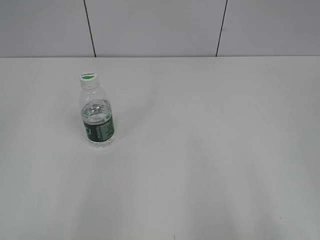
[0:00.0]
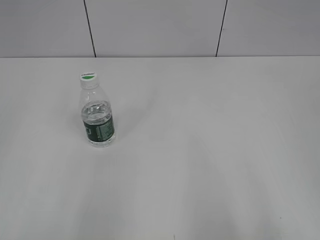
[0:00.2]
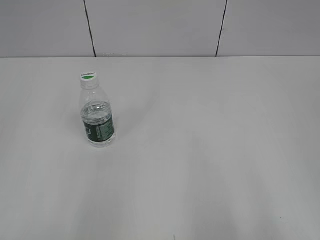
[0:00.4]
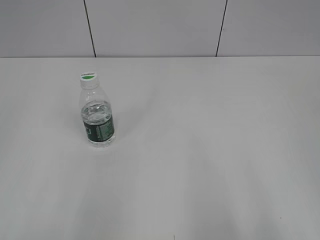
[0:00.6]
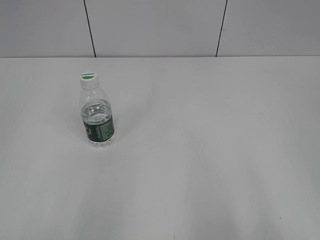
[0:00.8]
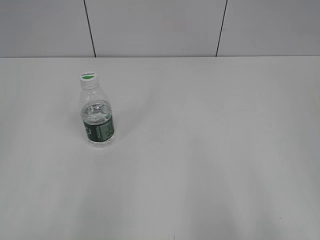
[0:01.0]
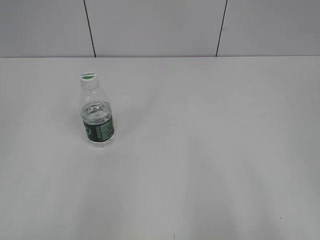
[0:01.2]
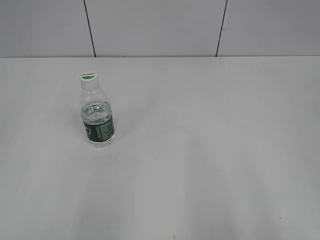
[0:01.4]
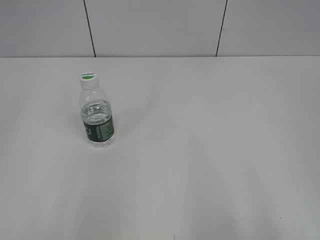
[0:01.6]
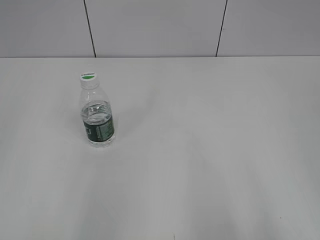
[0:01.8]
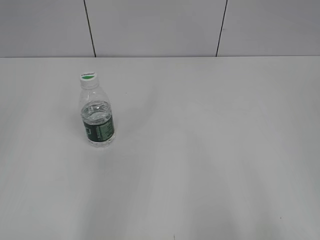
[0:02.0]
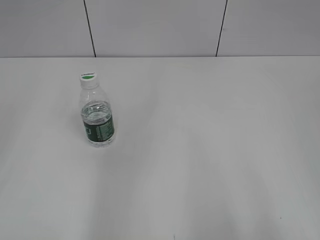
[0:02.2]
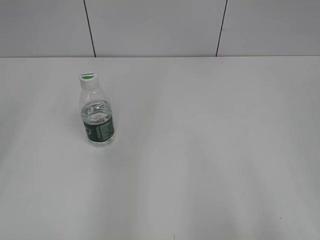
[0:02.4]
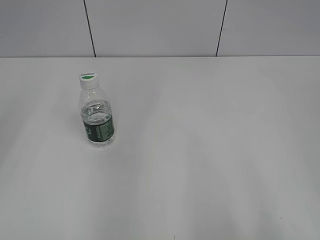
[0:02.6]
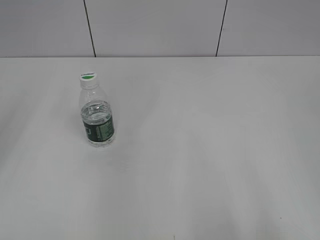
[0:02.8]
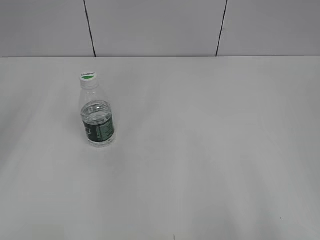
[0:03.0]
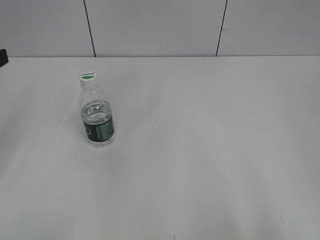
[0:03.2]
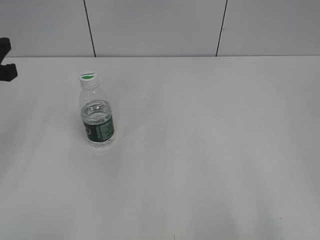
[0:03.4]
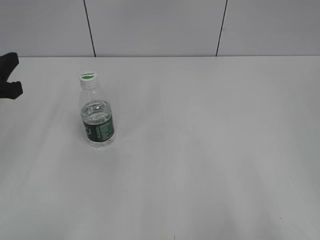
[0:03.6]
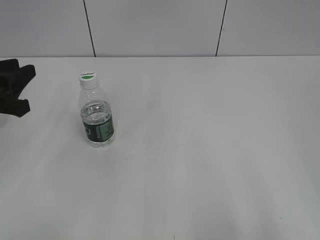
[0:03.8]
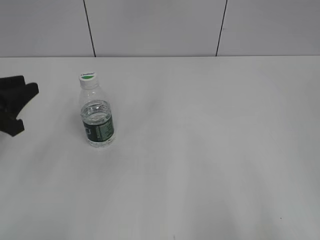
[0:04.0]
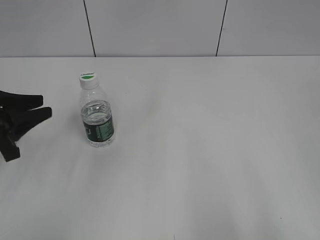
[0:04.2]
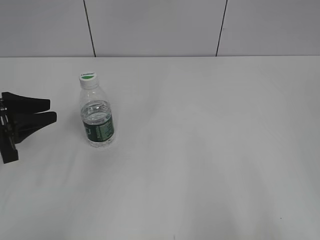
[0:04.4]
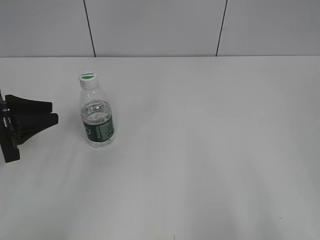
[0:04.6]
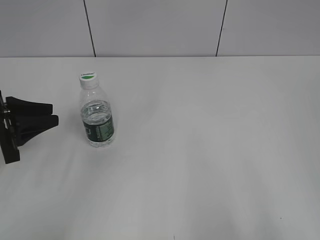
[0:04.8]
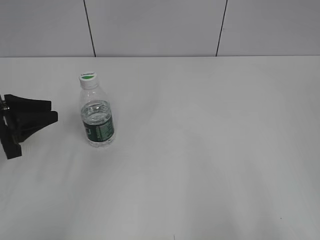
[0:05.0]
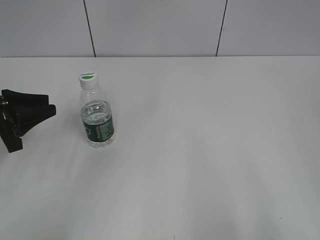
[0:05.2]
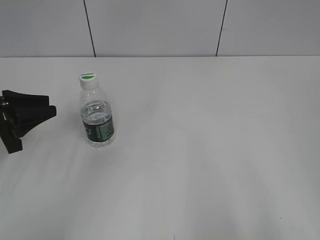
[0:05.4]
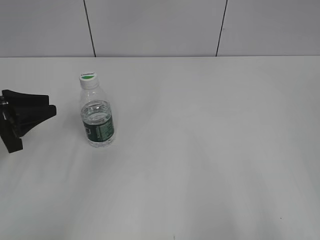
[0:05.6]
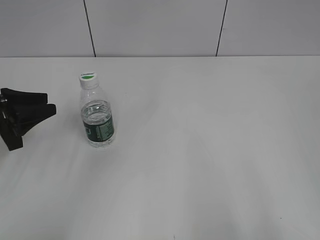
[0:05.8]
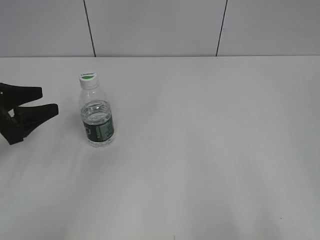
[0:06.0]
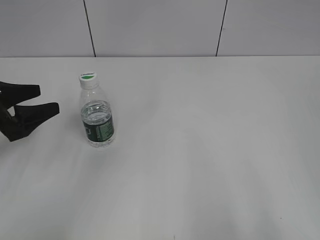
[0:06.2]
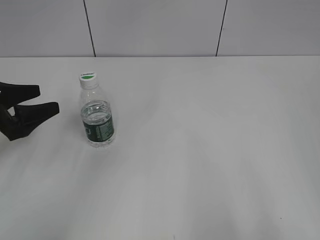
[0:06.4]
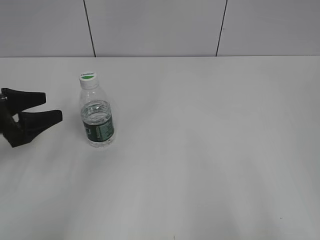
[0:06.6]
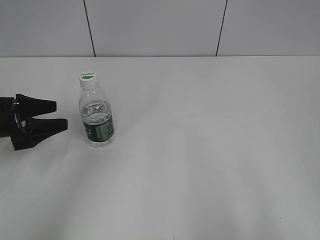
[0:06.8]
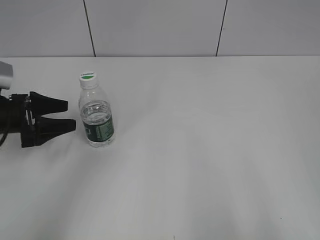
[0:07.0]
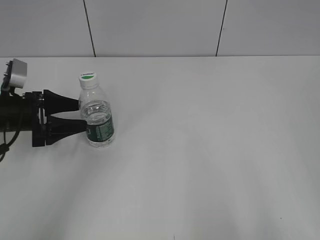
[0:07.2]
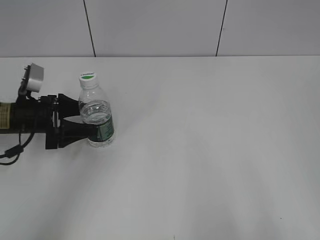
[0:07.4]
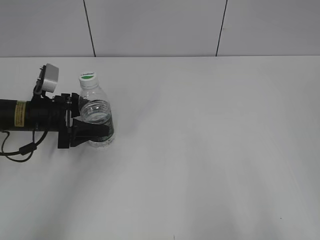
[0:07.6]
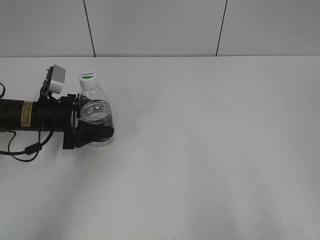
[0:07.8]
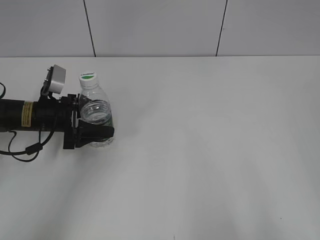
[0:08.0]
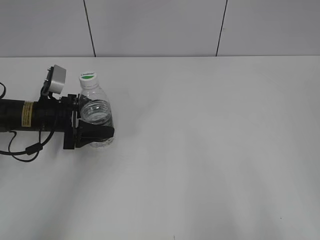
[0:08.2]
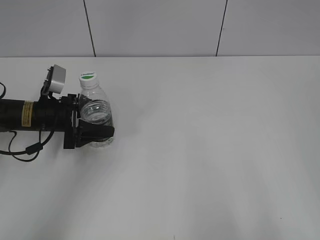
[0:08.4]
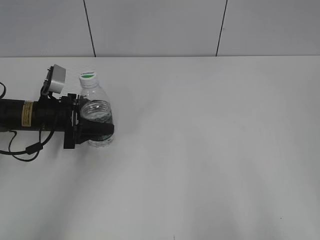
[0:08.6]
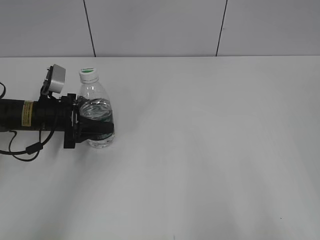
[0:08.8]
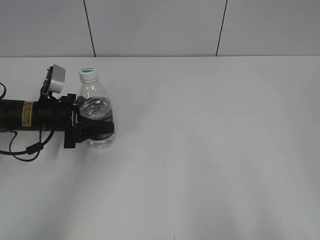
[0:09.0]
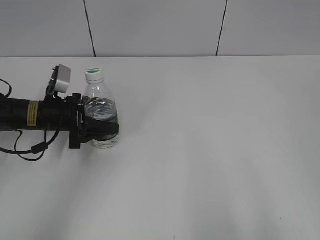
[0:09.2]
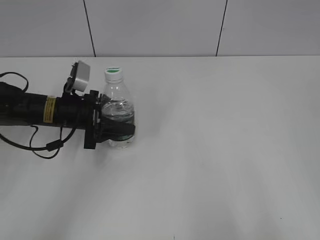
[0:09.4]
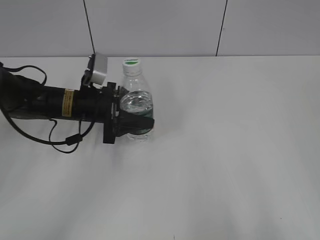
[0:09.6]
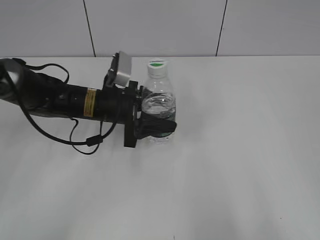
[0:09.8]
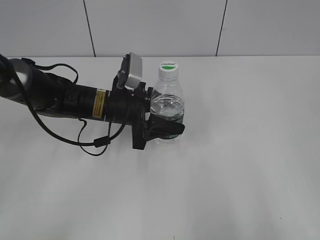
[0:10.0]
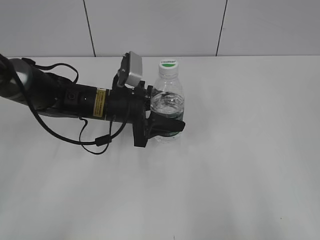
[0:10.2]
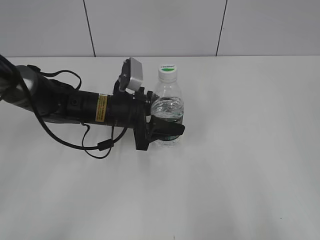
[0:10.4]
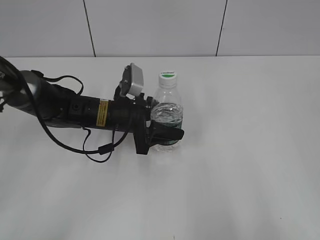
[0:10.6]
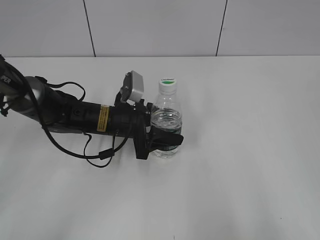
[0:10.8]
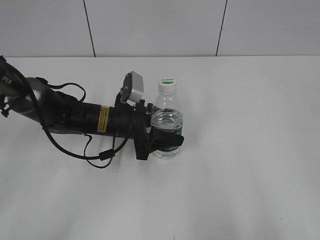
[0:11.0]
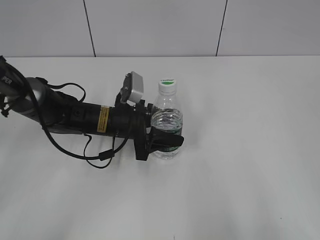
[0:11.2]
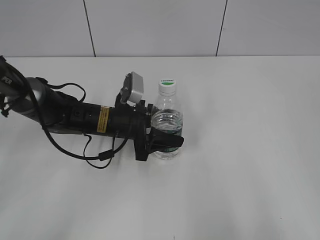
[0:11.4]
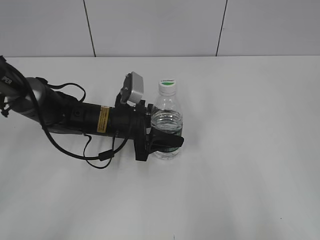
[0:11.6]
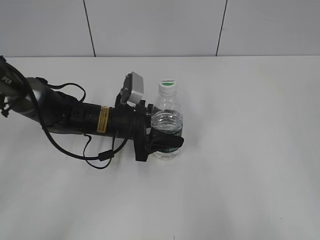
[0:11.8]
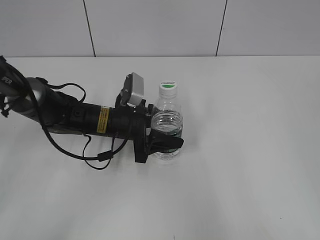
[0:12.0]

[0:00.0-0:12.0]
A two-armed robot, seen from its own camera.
Step, 0:00.0 to 0:08.8: Grasp the bottle and move it to the center of the table with the left gripper.
0:03.0 to 0:04.4: The left gripper is displaced downward by roughly 10 cm.
0:04.4 to 0:06.0: The left gripper opens up.
0:06.0 to 0:07.6: The left gripper travels forward, to the right and downward by approximately 10 cm.
0:07.6 to 0:09.0: The left gripper closes.
0:09.0 to 0:10.4: The left gripper heads to the right, covering approximately 15 cm.
0:10.4 to 0:12.0: The grippers move only a little.

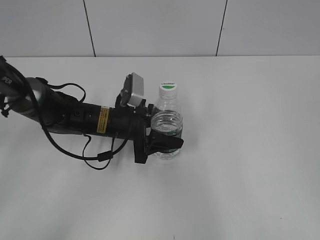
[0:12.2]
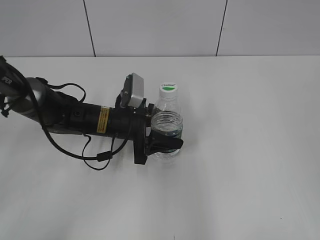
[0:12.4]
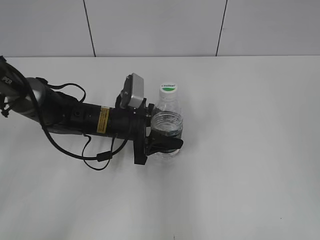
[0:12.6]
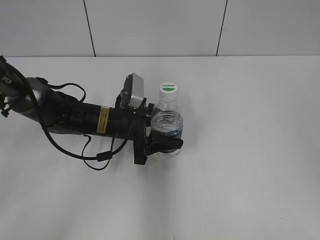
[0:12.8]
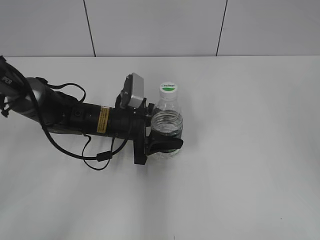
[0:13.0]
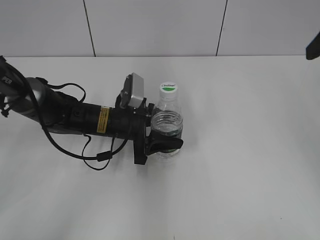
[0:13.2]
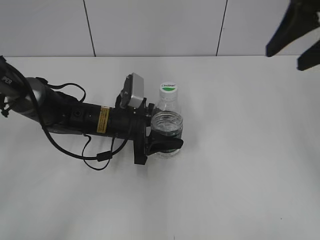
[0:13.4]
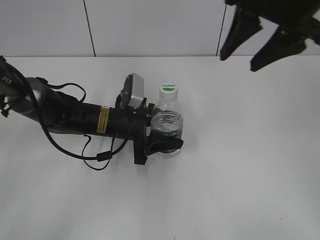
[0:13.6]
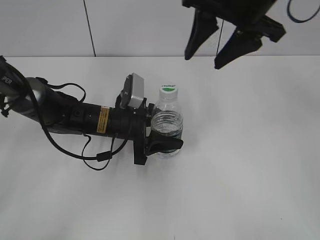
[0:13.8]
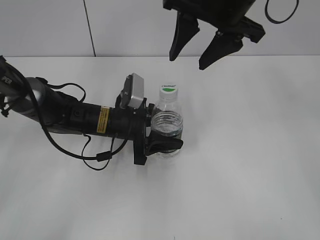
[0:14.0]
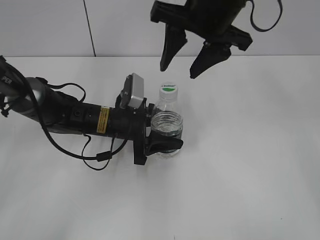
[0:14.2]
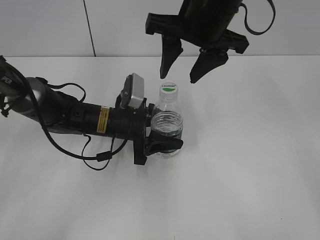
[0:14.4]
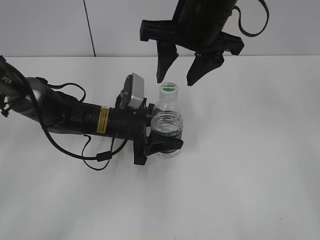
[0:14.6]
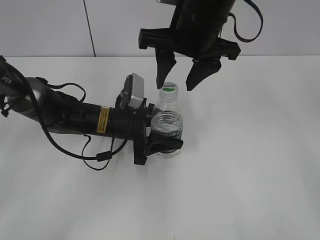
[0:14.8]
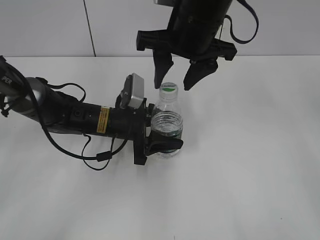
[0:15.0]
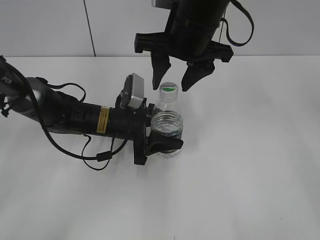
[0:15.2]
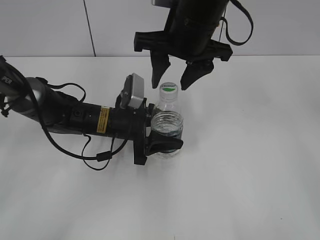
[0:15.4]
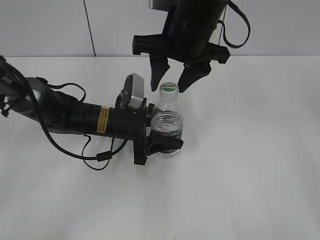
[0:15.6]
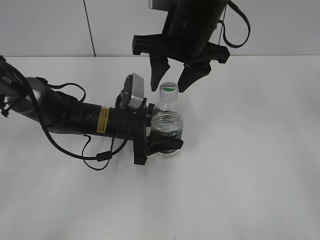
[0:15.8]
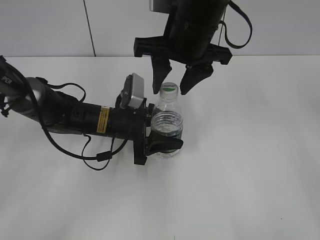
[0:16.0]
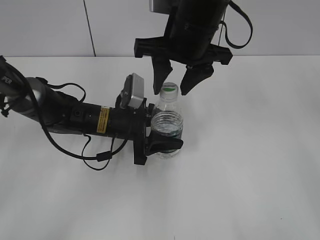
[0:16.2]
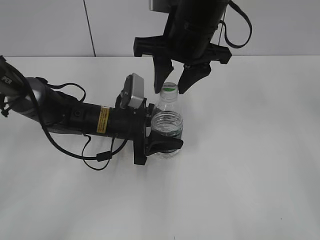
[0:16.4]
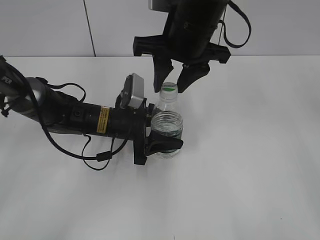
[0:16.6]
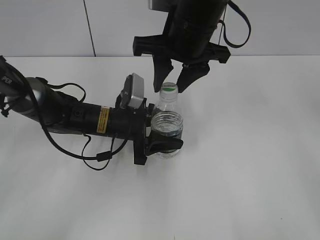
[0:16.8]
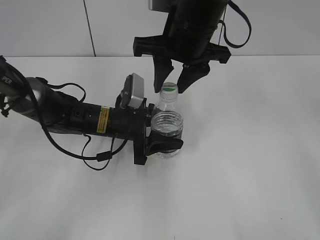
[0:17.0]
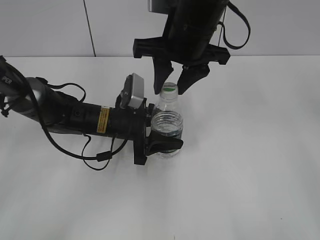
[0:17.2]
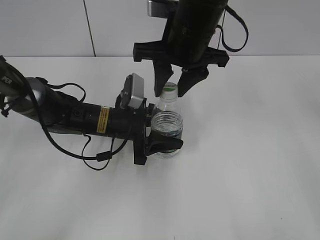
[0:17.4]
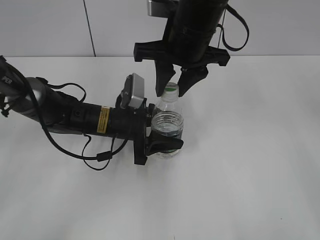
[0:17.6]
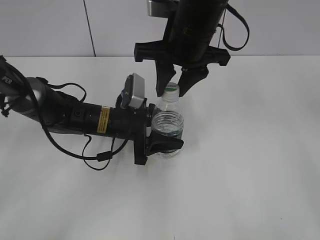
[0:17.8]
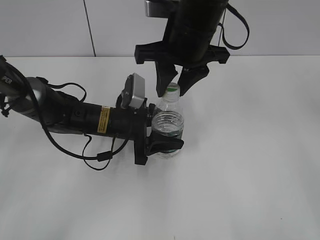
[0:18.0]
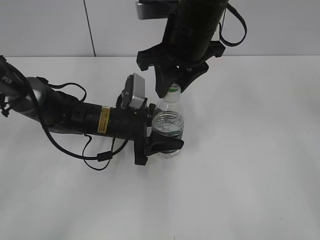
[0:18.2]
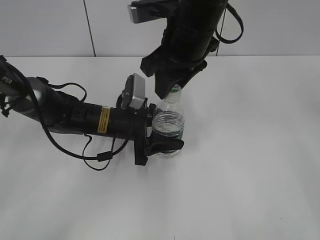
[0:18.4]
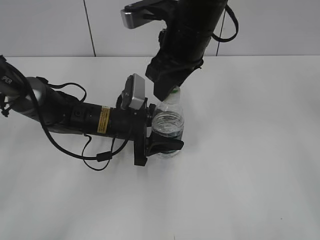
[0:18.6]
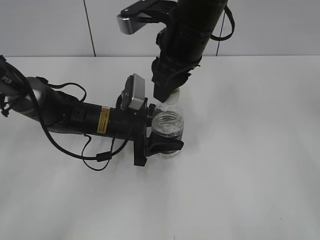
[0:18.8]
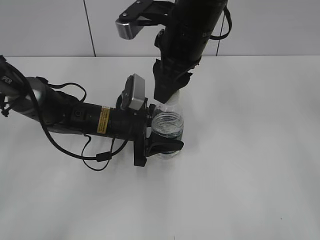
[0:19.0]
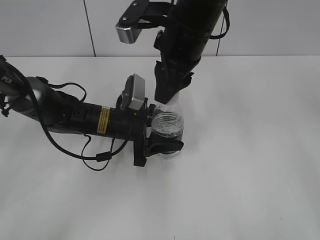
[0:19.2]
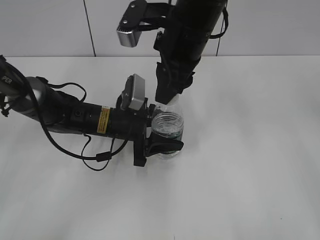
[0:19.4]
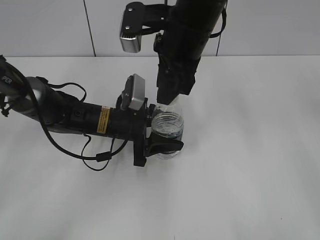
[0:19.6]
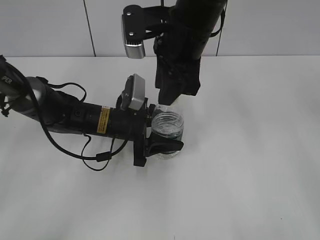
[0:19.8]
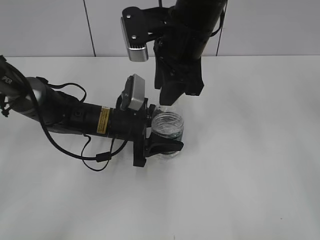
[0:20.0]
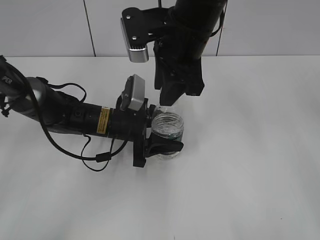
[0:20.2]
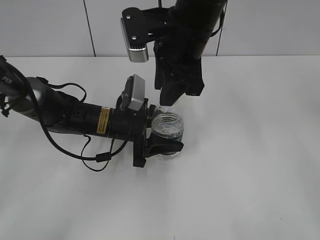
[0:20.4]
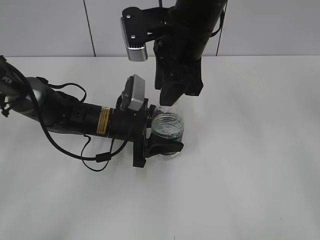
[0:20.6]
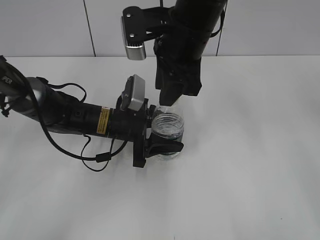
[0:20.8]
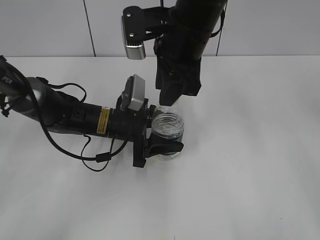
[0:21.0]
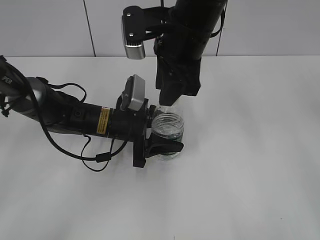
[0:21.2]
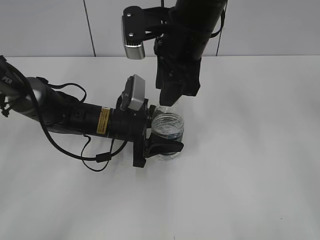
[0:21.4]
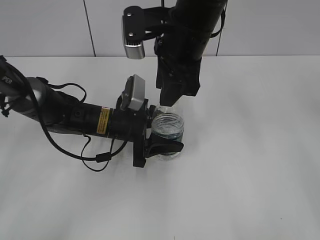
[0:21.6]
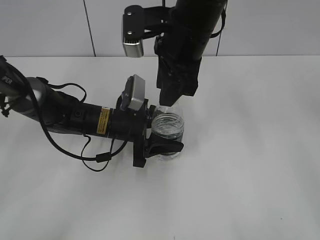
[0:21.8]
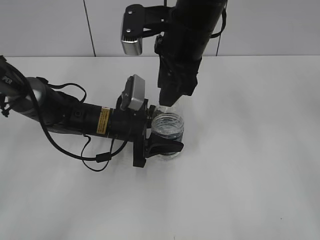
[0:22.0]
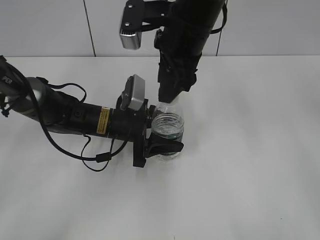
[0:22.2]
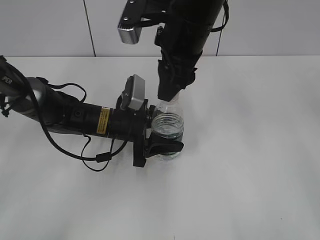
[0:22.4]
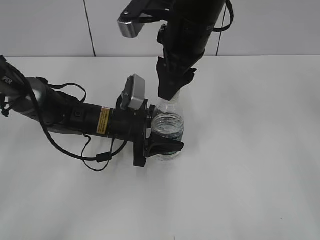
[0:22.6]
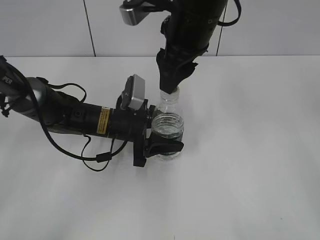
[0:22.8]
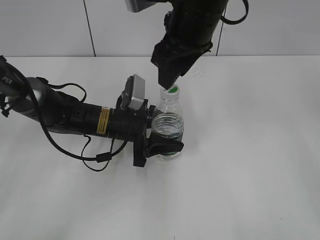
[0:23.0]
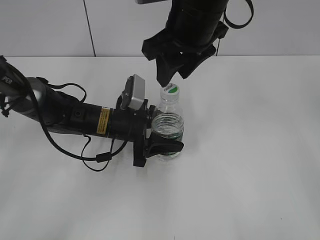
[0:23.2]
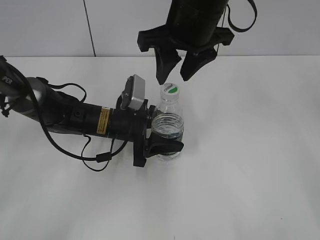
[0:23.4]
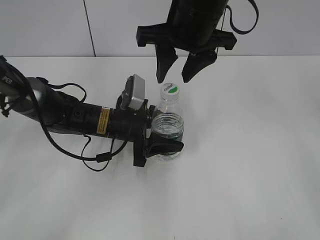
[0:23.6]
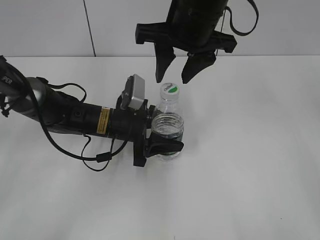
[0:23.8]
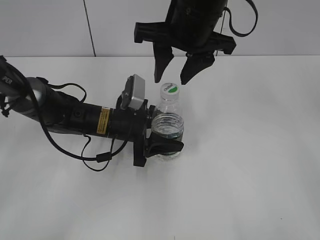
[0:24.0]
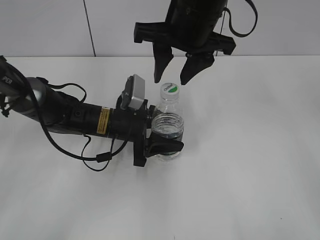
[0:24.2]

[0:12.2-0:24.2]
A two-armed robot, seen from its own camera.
0:12.2 to 0:13.8: The right gripper moves forward and to the left, roughly 35 cm.
0:13.8 to 0:15.2: The right gripper travels to the left and downward by roughly 10 cm.
0:15.2 to 0:16.6: The right gripper closes.
0:16.6 to 0:18.2: The grippers move only a little.
0:19.8 to 0:21.2: Both grippers stay about where they are.
0:21.2 to 0:22.6: The right gripper opens.
